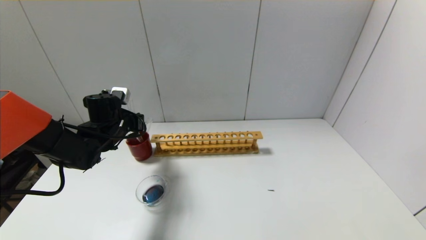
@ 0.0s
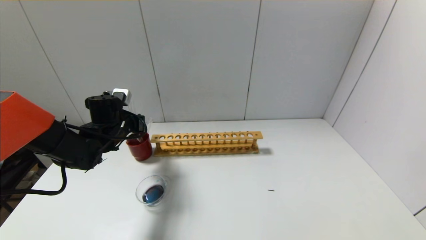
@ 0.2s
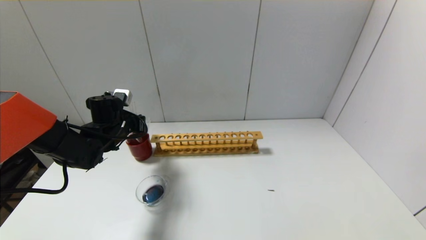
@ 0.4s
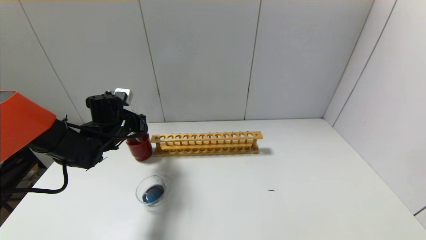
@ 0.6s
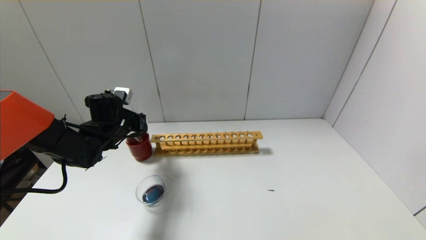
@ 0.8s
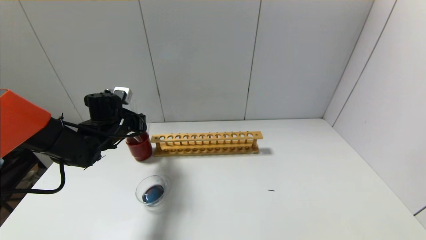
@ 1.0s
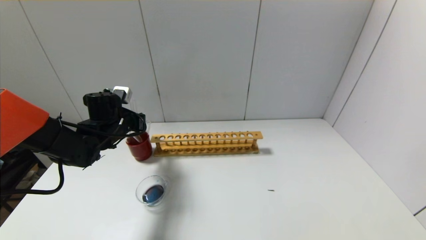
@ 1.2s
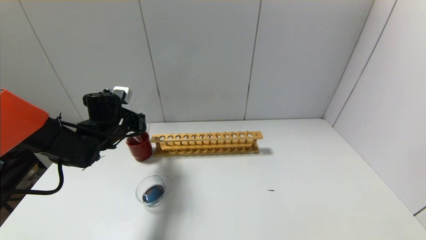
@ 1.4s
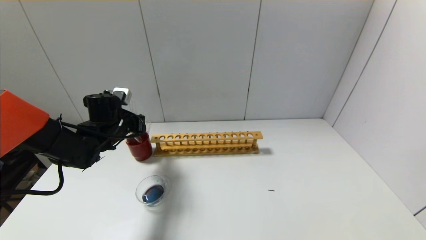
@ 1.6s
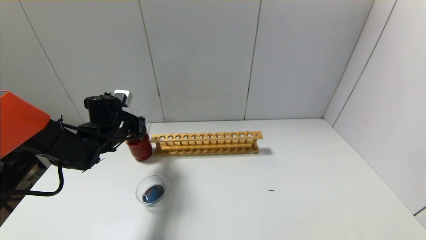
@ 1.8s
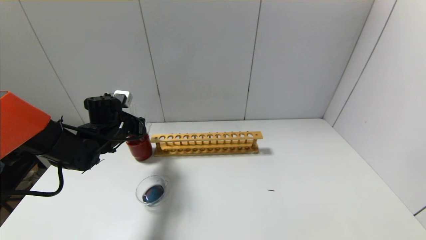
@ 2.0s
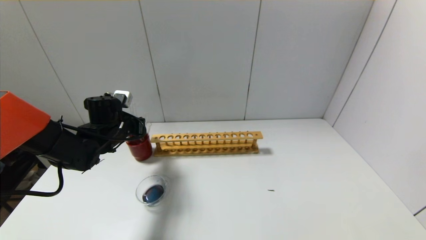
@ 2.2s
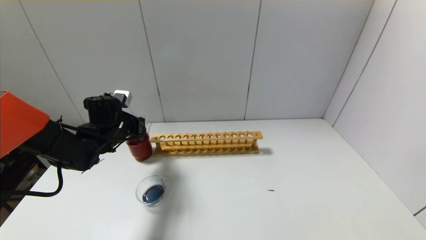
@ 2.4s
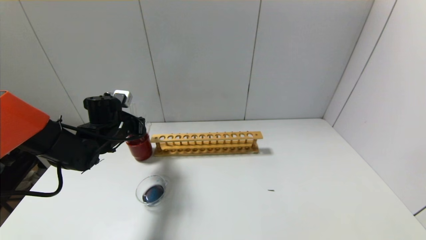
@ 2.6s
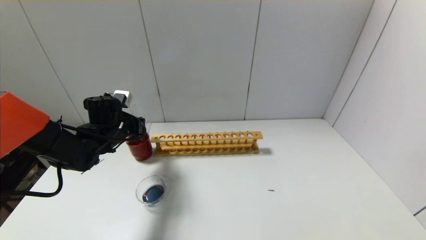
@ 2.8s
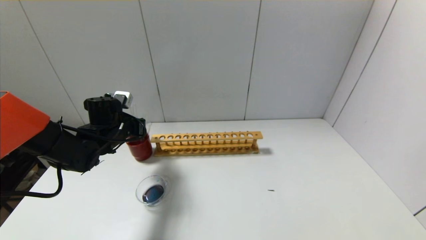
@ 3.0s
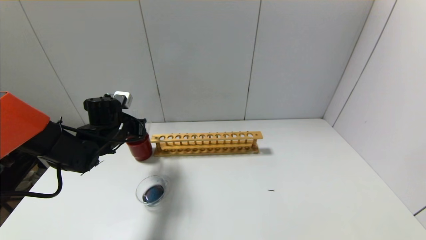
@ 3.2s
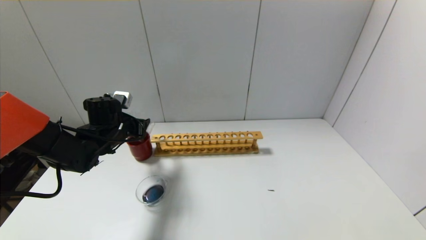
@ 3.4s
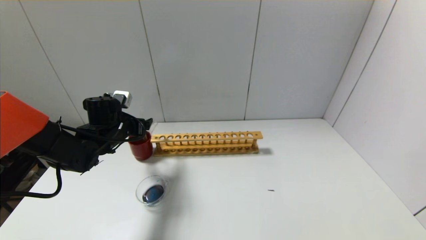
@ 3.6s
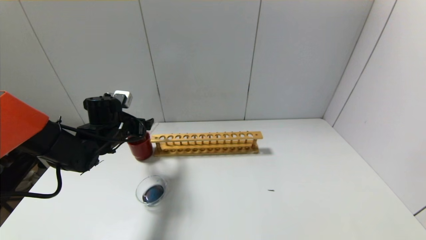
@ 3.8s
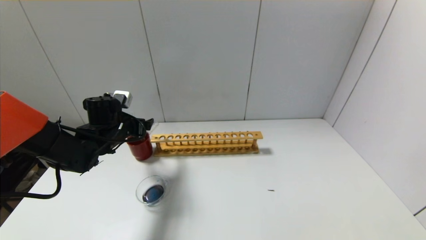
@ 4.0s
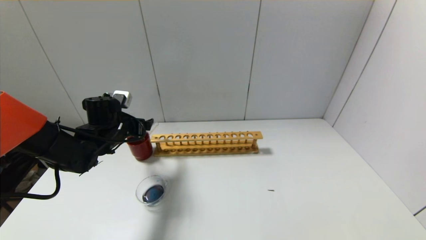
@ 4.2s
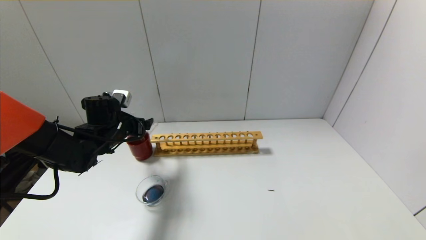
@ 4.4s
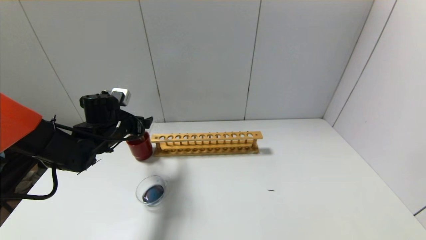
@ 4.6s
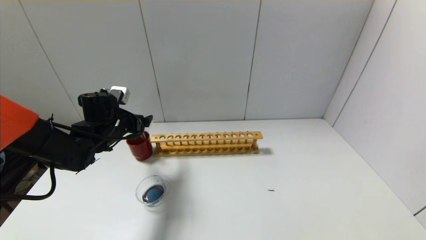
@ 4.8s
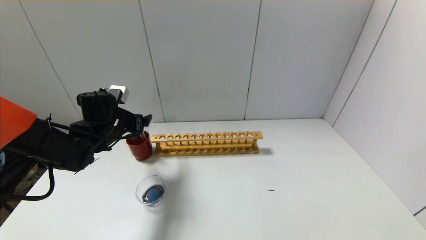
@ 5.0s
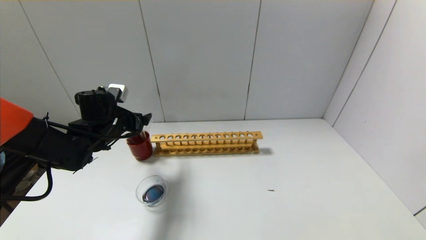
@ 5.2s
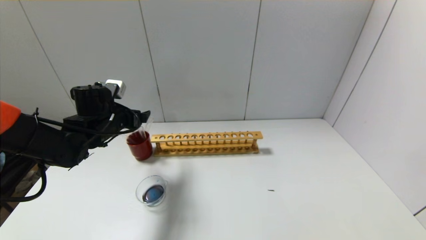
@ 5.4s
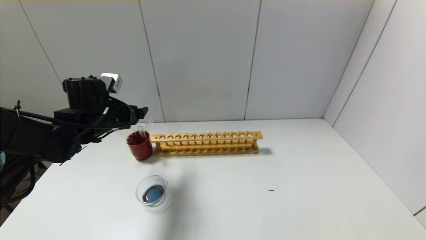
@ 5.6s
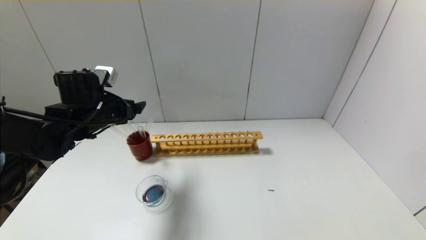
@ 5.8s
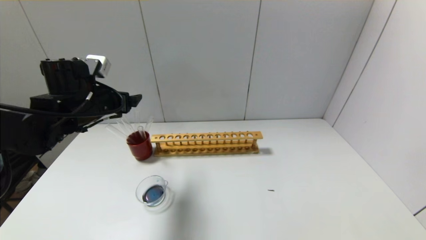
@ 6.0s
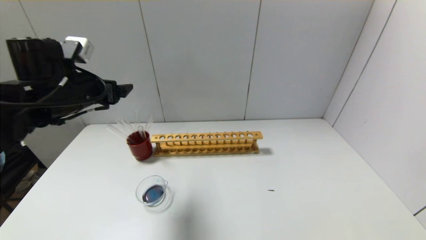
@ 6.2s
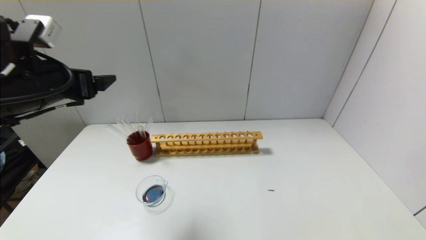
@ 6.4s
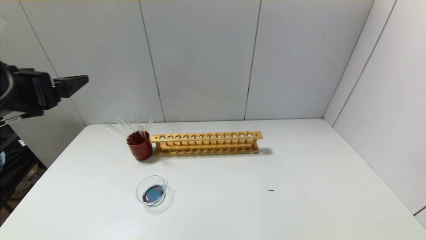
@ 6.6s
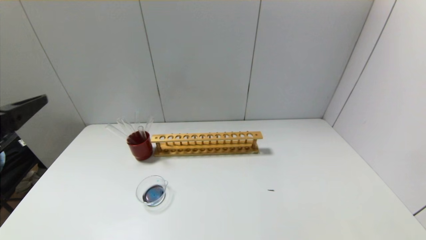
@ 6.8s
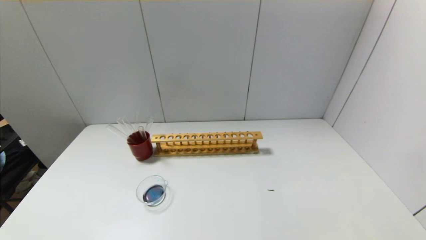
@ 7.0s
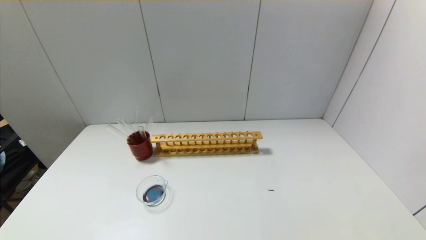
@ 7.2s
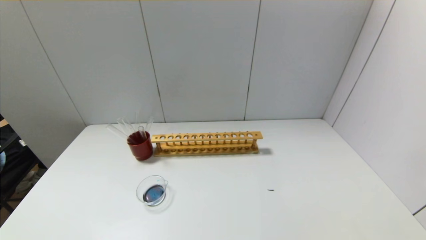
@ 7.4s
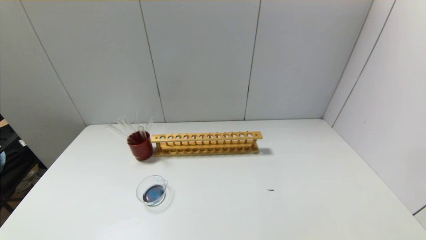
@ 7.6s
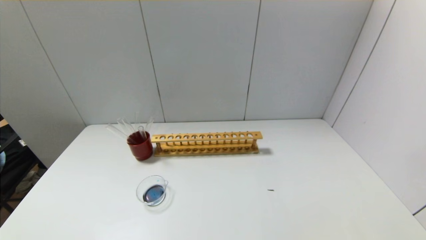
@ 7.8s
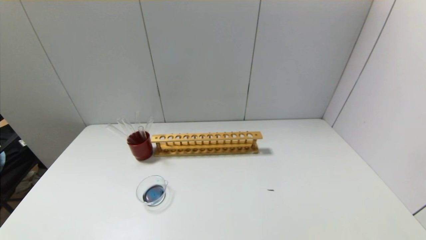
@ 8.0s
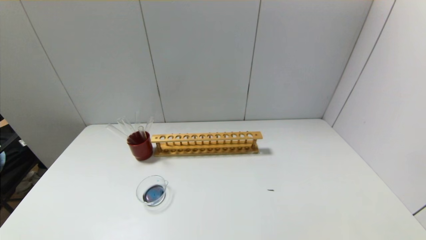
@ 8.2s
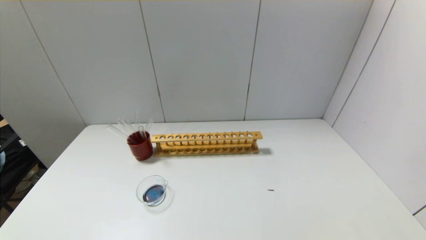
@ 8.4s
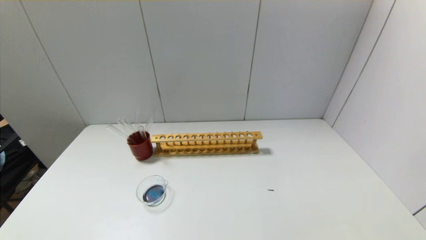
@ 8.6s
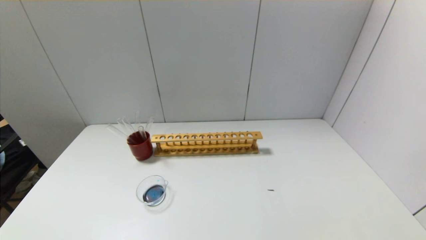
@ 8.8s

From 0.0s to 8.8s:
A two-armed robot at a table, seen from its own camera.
Step, from 0.0s to 3.2s: Place the test tube into the brown cup with the left gripper.
From 0.0s to 3.0s: The two grippers keep their place.
From 3.0s to 4.4s: The left gripper opens.
From 4.4s to 5.8s: The left gripper shifts approximately 5 cm upward.
From 5.8s to 7.4s: The left gripper heads backward, covering roughly 35 cm.
